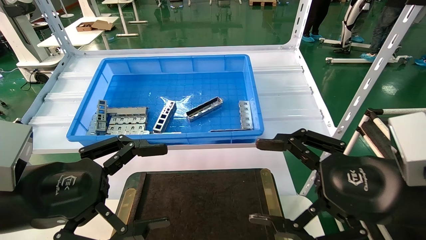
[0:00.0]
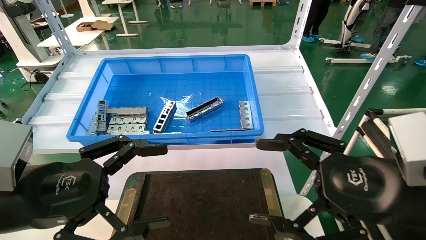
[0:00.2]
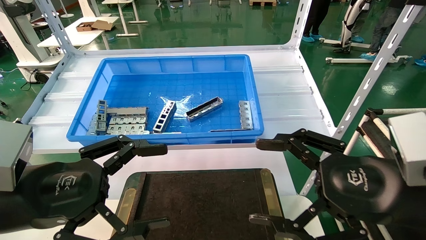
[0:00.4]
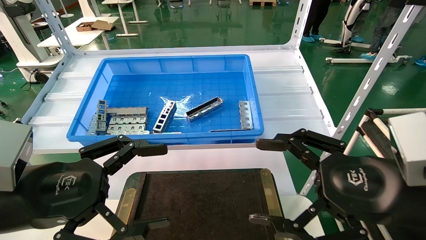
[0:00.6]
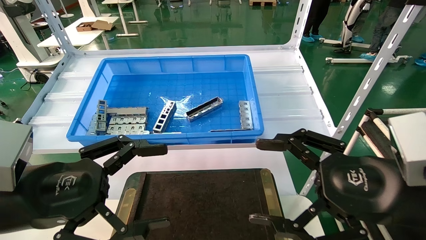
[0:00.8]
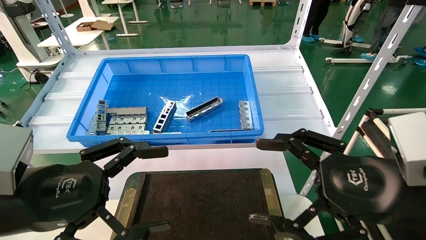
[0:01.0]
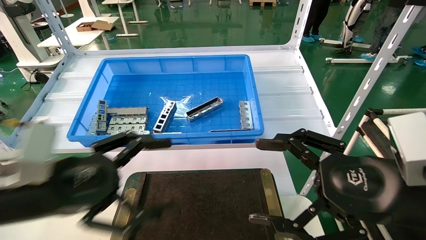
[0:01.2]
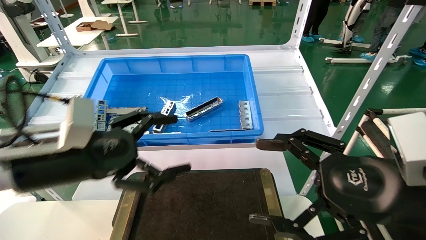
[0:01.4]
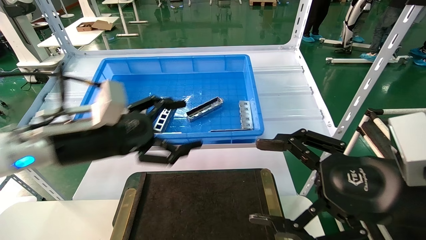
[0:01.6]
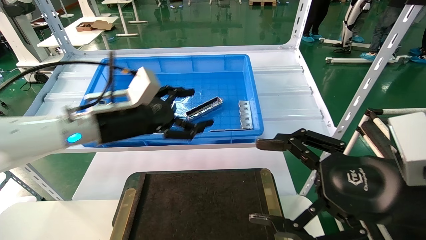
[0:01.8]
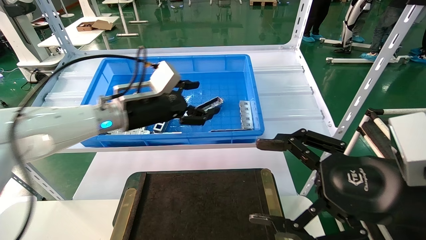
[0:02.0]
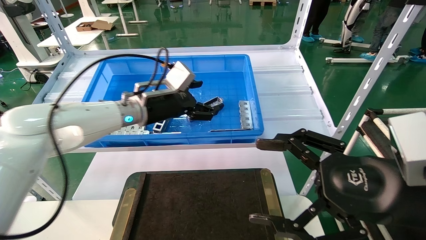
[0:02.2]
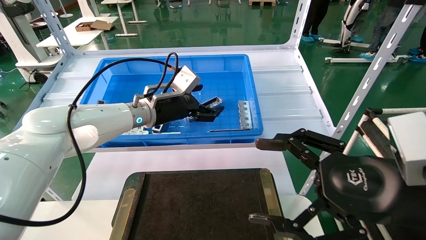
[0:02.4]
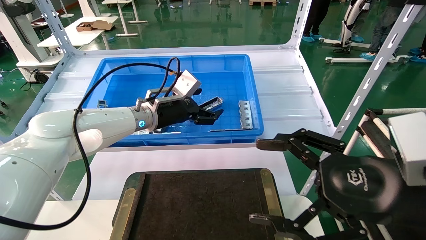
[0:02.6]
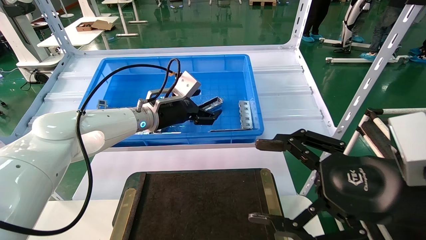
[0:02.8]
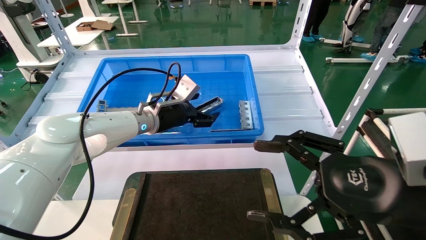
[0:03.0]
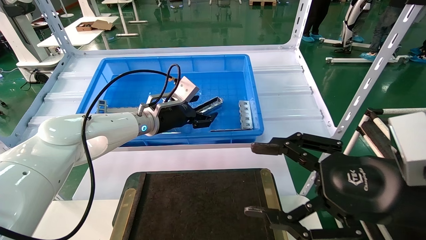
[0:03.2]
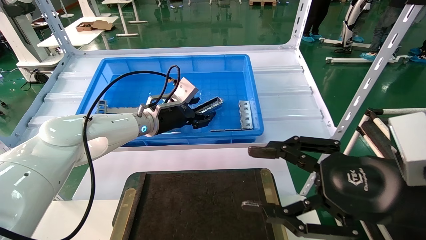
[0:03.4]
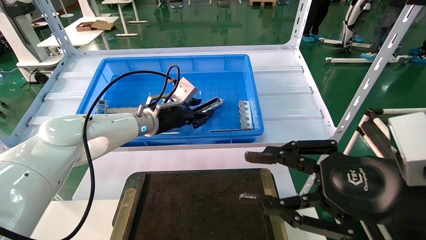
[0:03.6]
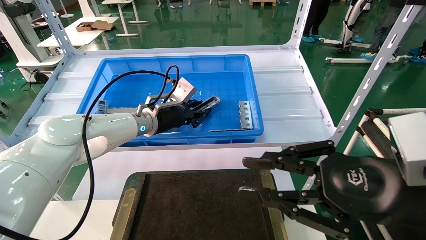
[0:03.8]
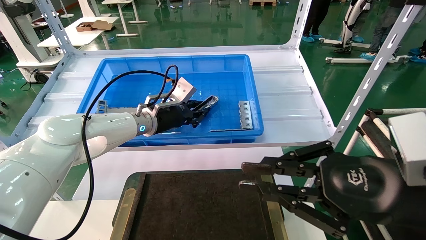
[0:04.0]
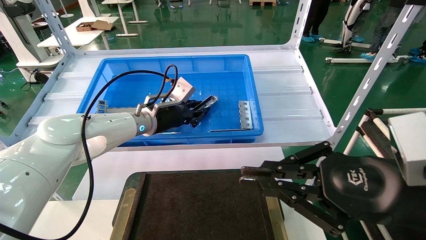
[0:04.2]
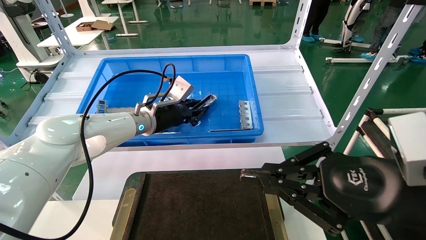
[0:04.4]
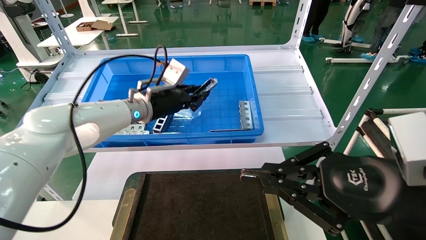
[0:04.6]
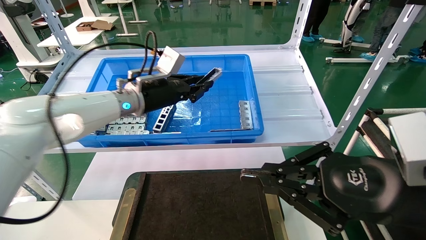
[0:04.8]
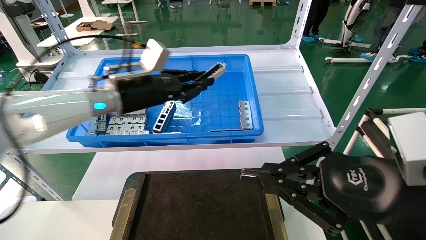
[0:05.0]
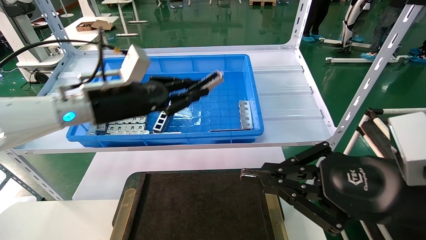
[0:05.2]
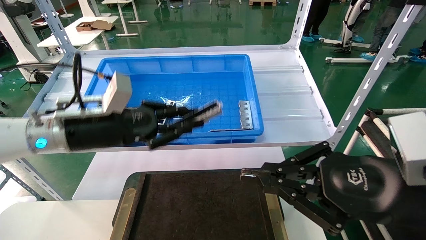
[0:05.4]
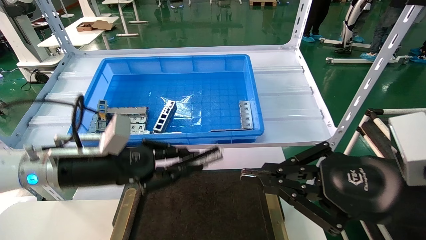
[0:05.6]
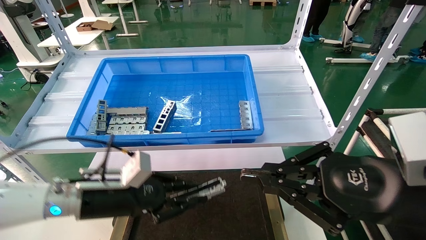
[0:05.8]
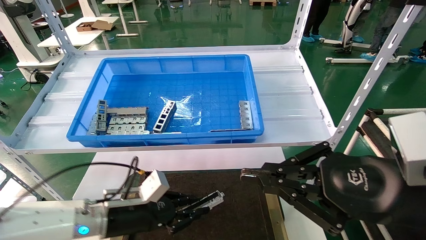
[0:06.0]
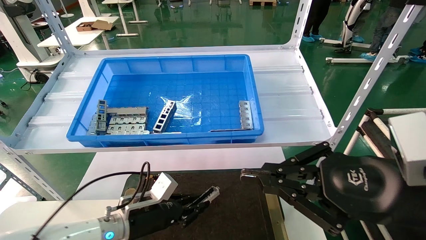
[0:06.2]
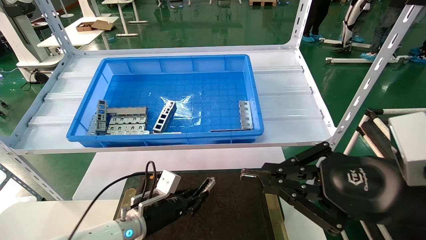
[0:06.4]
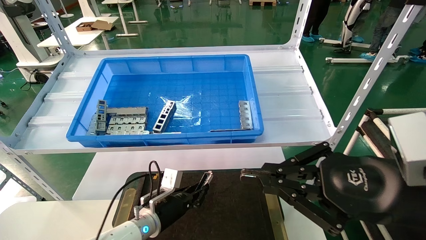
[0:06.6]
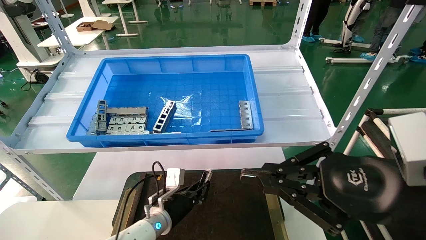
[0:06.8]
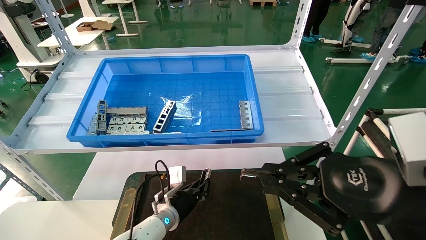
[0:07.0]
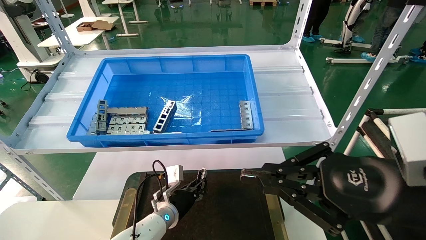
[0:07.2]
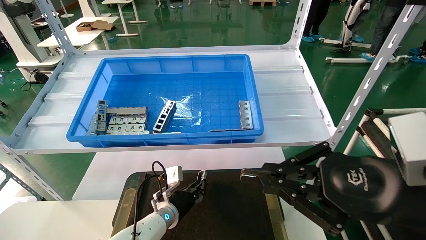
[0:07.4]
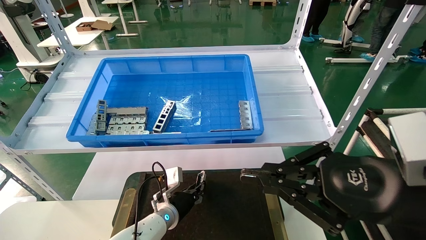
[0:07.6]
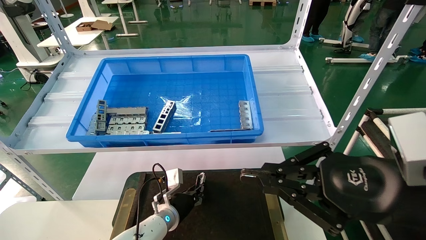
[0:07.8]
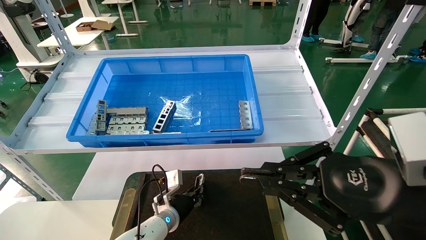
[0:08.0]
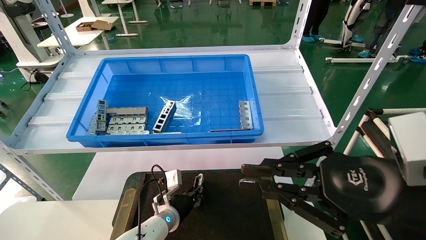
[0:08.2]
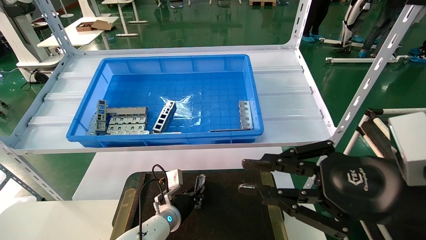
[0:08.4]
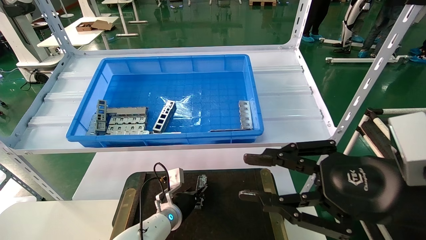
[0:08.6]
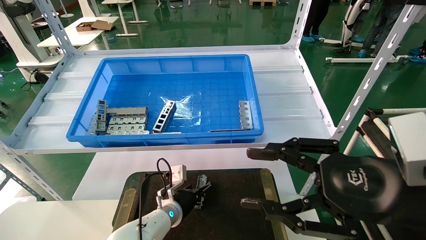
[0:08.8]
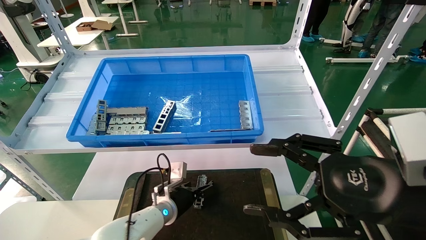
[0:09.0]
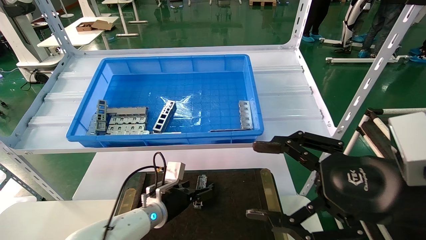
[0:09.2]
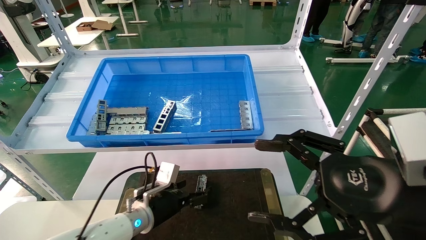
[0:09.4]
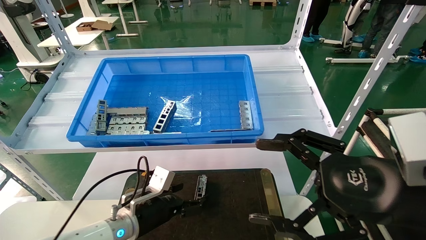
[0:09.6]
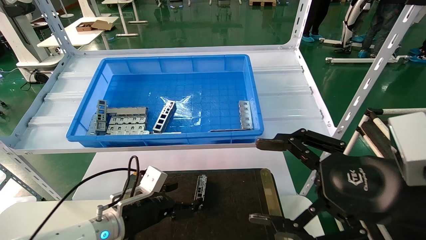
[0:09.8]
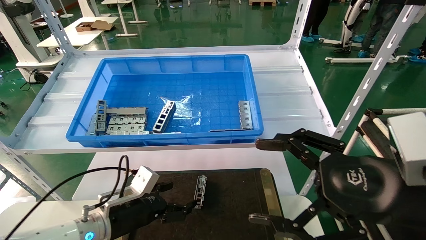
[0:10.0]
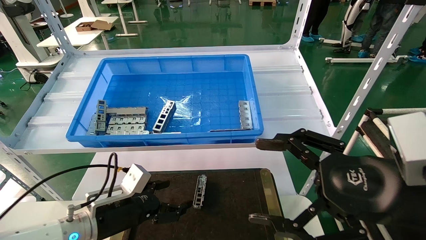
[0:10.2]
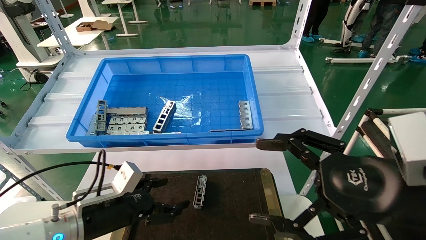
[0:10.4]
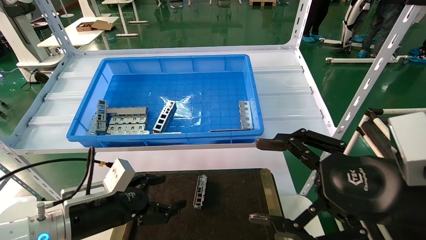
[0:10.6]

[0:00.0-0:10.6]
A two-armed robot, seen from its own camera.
Task of the whole recording: Grasp the part with one hand and place it on the black container.
Step, 0:01.2 to 0:04.8: Pick up the front USB bracket from the feeding area.
Step, 0:05.0 to 0:08.6: Place the front USB bracket into the box.
0:00.0 to 0:01.6: The left gripper goes approximately 15 cm forward.
0:01.6 to 0:03.0: The left gripper travels forward and to the right by about 20 cm.
0:03.0 to 0:04.6: The left gripper closes up. Meanwhile the right gripper closes.
0:04.6 to 0:06.0: The left gripper moves downward and backward, about 25 cm.
0:06.0 to 0:07.6: The left gripper travels downward, forward and to the right by approximately 15 cm.
0:07.6 to 0:09.0: The right gripper opens. Meanwhile the left gripper opens its fingers.
0:09.0 to 0:10.6: The right gripper opens up. The left gripper is displaced backward, to the left and upward by about 20 cm, and opens up.

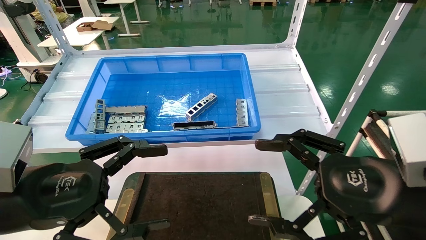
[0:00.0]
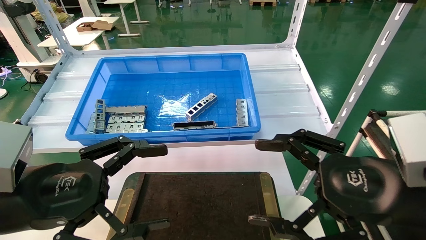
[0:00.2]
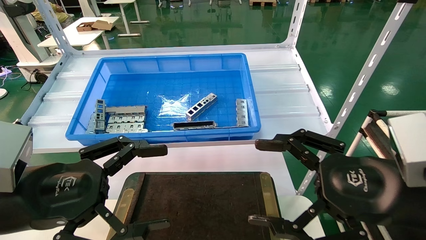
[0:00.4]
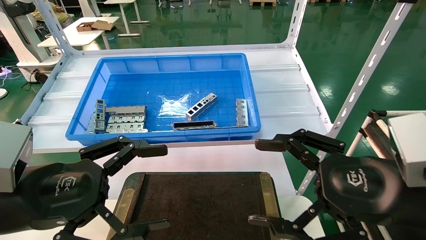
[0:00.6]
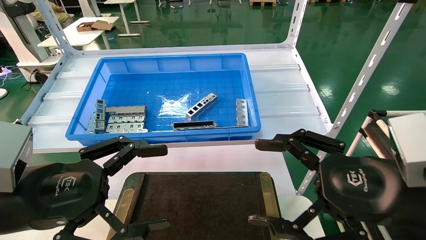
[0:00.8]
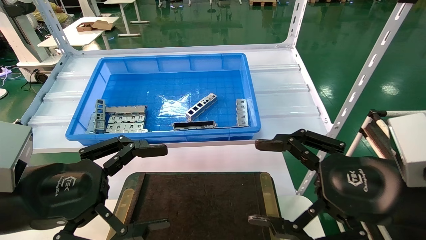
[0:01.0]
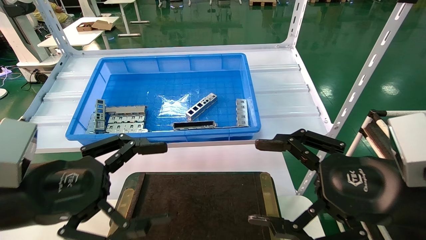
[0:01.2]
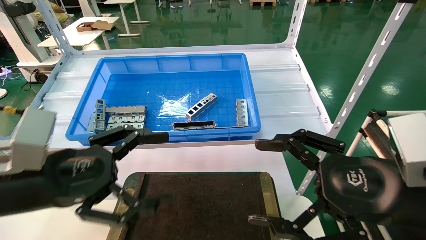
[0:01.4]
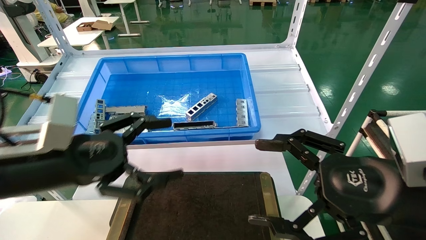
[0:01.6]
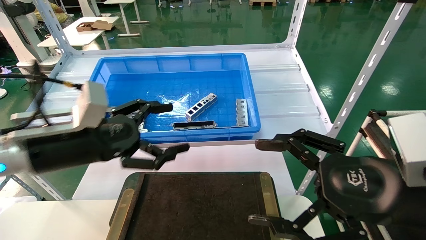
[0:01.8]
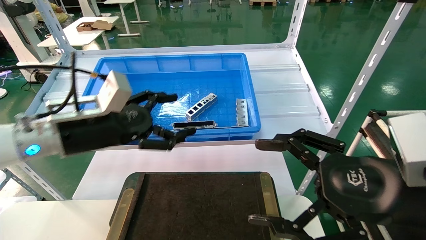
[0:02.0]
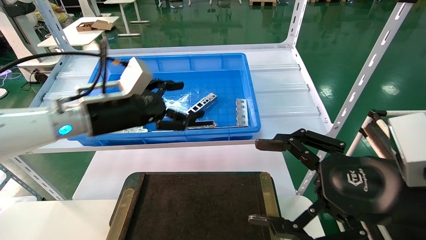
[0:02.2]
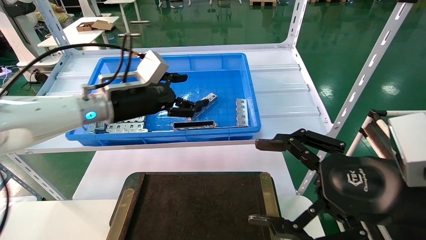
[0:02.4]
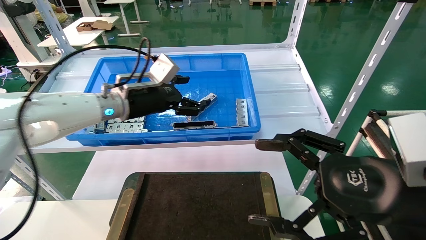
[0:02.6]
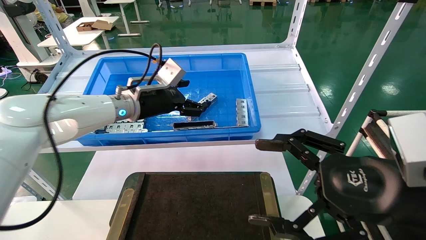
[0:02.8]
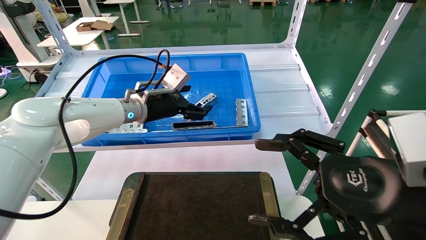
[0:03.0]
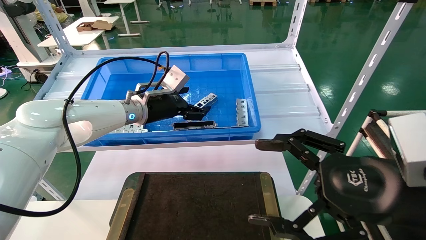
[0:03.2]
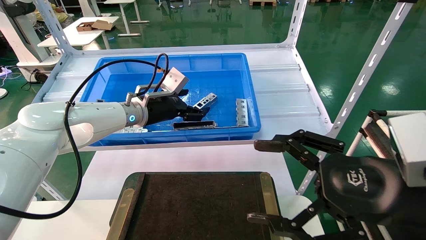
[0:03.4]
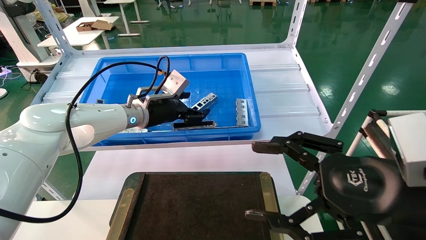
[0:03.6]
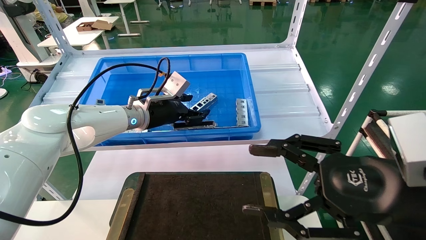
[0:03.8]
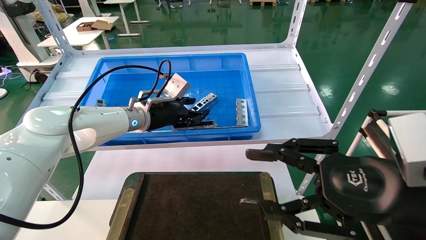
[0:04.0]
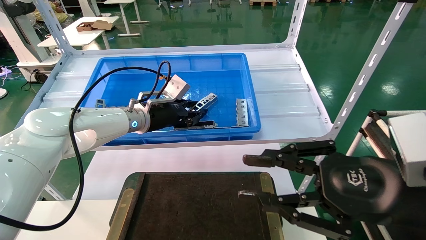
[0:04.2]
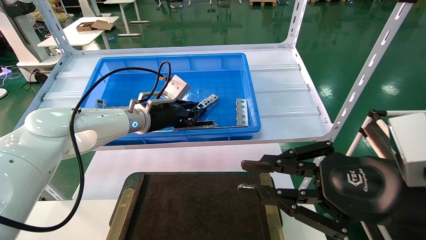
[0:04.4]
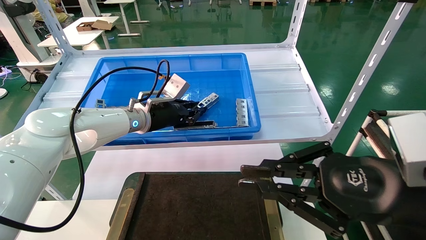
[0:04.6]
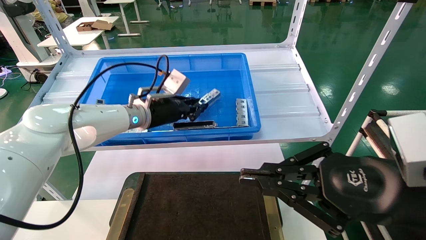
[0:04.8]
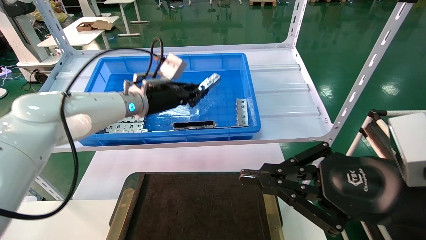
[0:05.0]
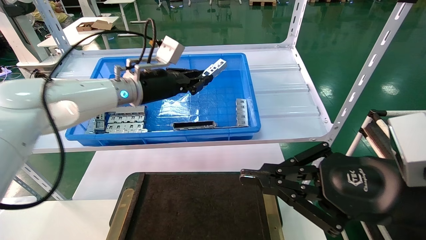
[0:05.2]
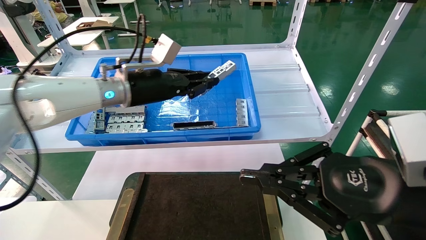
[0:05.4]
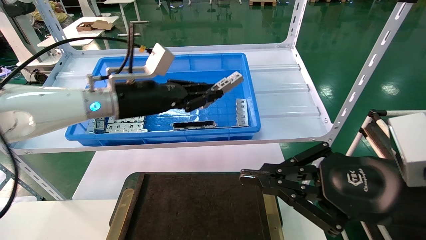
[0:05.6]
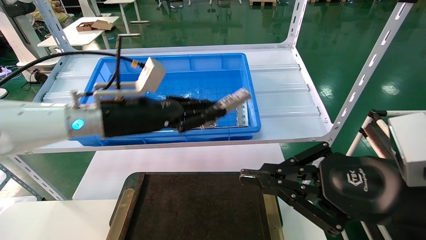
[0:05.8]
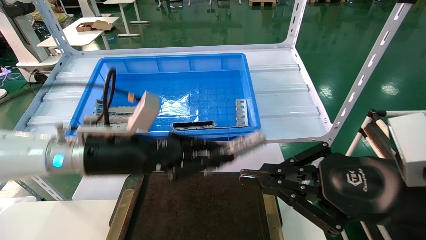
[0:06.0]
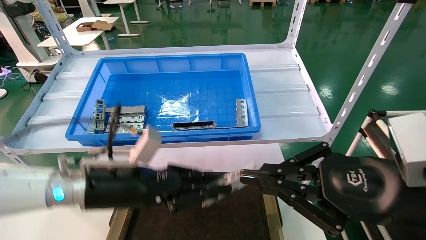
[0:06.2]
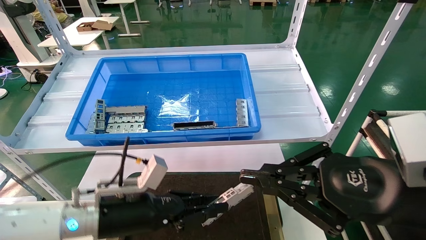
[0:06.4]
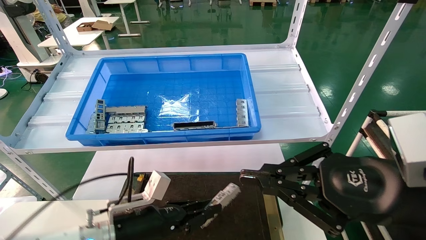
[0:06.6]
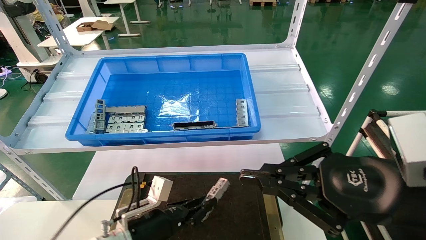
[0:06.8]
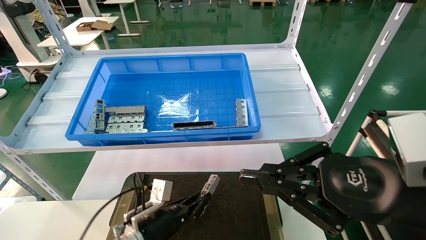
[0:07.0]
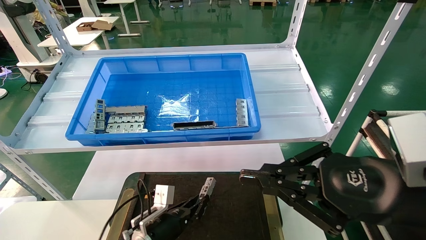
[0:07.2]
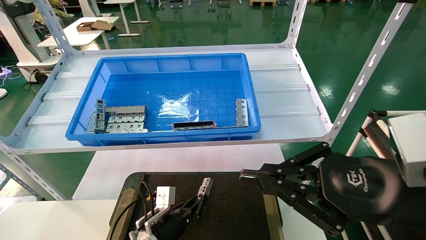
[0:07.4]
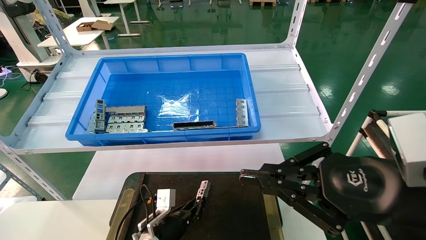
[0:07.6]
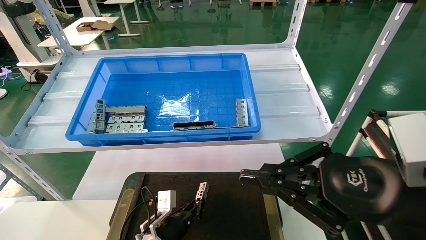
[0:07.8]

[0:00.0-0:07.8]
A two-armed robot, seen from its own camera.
Task of the whole recording: Grasp the part with one hand and place it on the black container.
Step, 0:01.4 to 0:05.4: Pick up the front USB bracket from the feeding area.
0:00.0 to 0:01.6: The left gripper shifts about 5 cm forward.
0:01.6 to 0:03.2: The left gripper shifts about 25 cm forward.
0:03.2 to 0:04.6: The right gripper closes its fingers. The left gripper closes up.
0:04.6 to 0:06.2: The left gripper shifts approximately 20 cm backward and downward.
0:06.2 to 0:07.8: The left gripper is displaced downward by about 25 cm.
